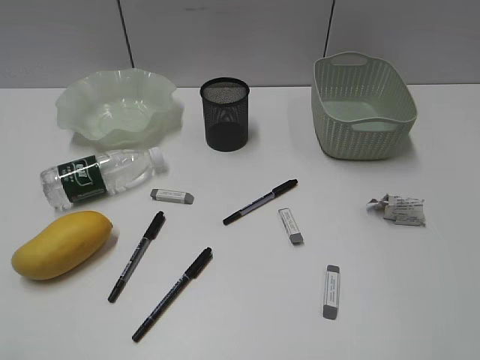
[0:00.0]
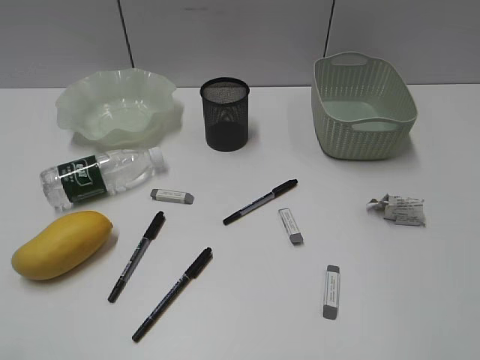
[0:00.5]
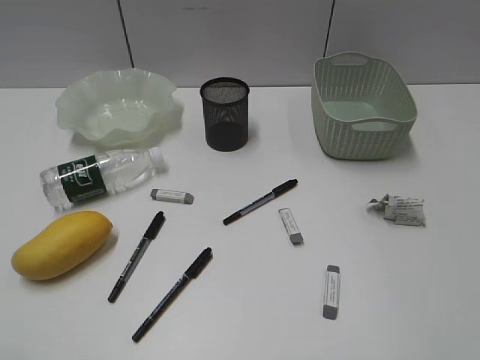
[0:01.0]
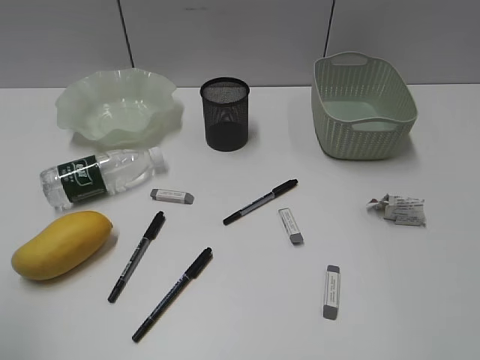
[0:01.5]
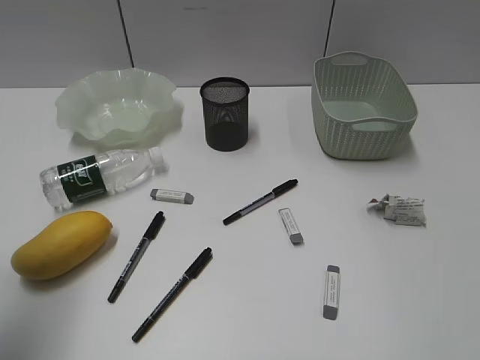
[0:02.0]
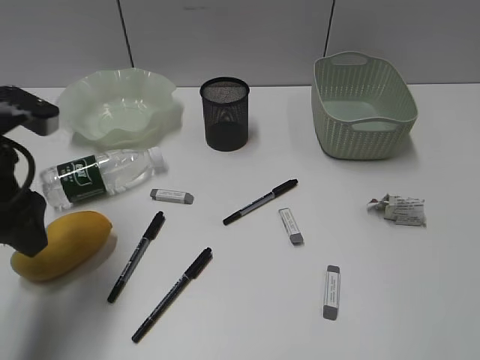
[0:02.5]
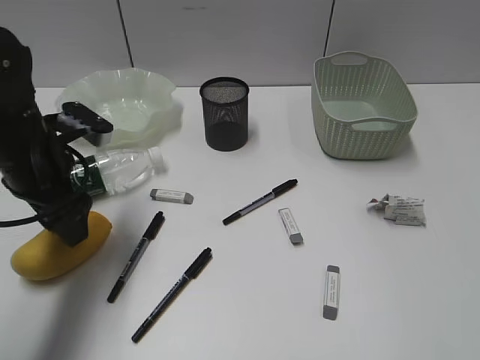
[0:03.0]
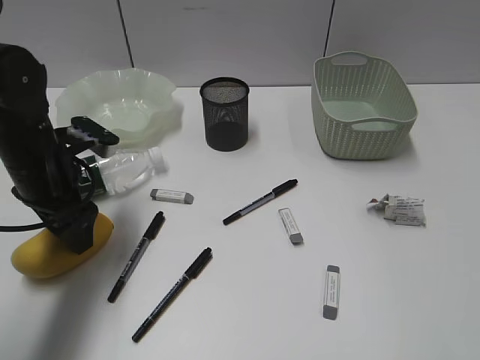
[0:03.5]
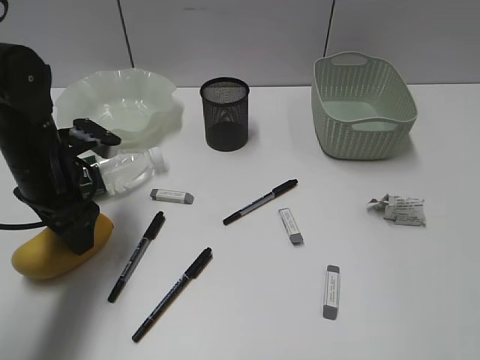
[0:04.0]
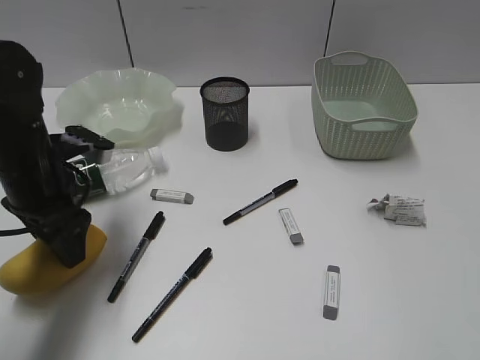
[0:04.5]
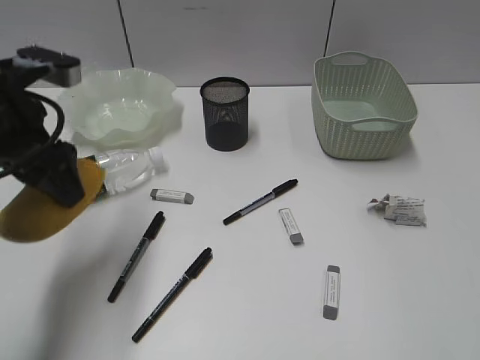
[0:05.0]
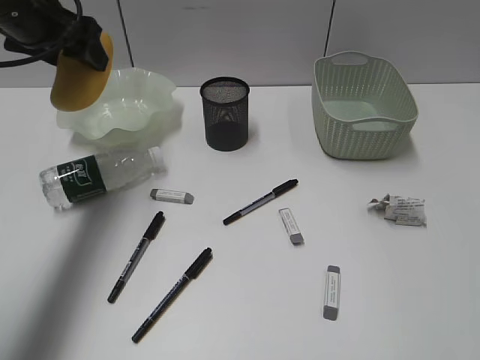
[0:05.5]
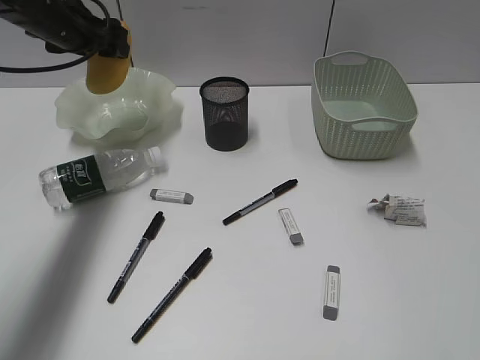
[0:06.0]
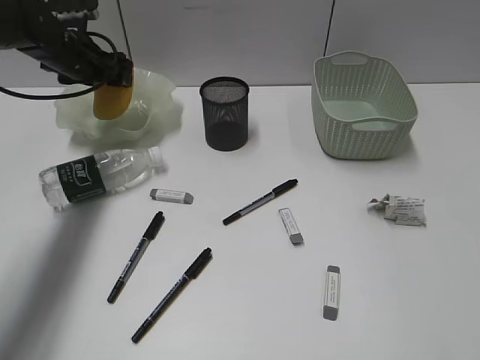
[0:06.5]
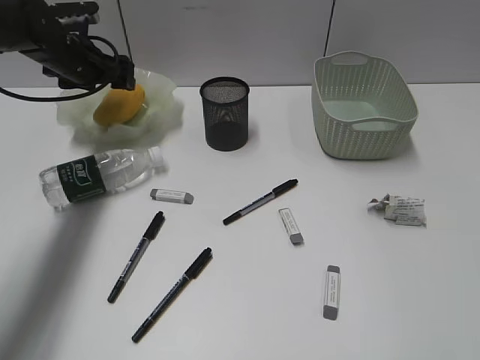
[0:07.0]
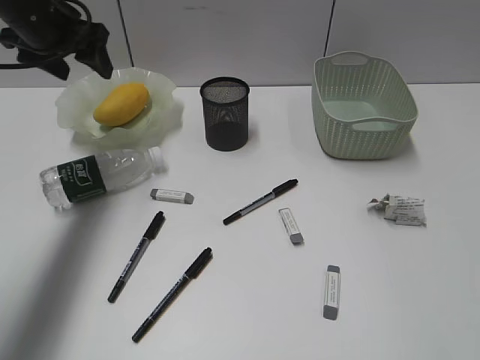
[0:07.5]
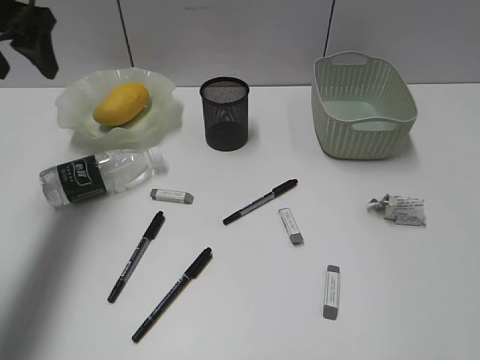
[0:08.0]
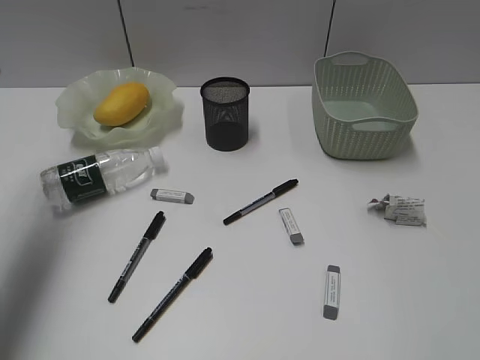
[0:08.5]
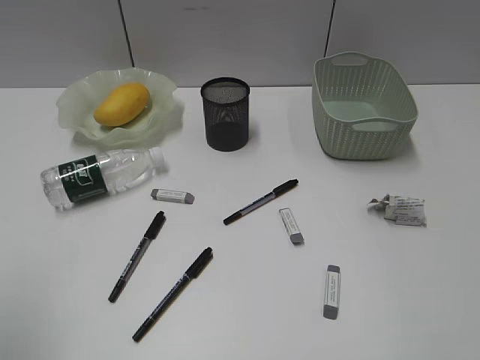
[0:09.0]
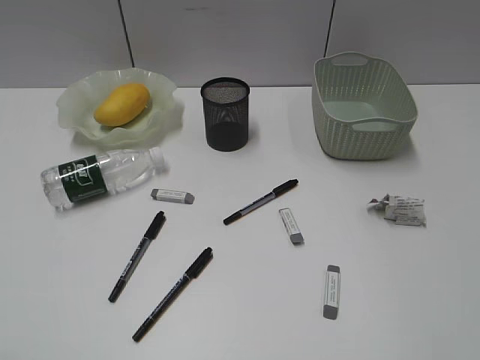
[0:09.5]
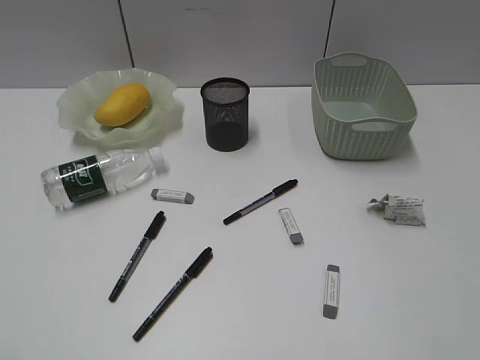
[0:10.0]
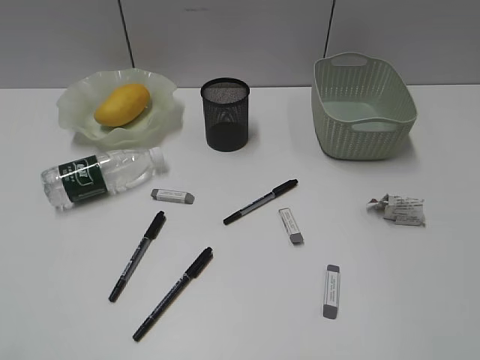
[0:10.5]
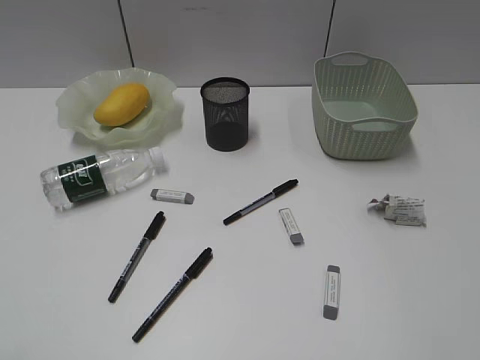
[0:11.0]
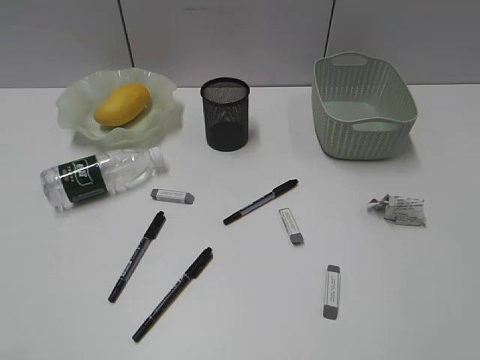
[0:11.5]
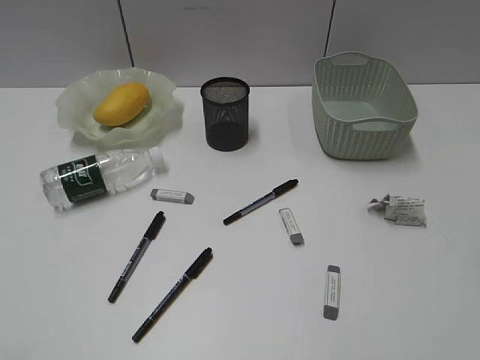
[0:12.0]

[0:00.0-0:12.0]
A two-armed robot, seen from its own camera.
Step, 0:02.5 to 0:04.0: Grasp the mango with left gripper.
Step, 0:04.5 to 0:07.0: Place the mango in the plate with left gripper.
0:02.0 to 0:04.0: The left gripper travels downward, forward and to the right by approximately 25 cm.
0:04.0 to 0:06.0: The left gripper goes roughly 20 cm forward and upward.
0:06.0 to 0:08.0: The left gripper is displaced backward and upward by approximately 10 cm.
0:08.0 to 0:10.0: The left gripper travels backward by roughly 40 cm.

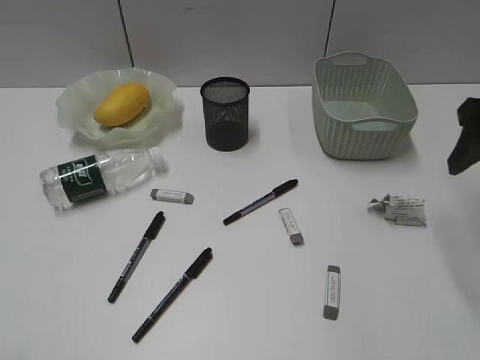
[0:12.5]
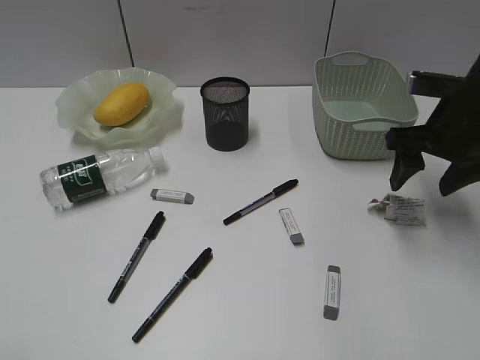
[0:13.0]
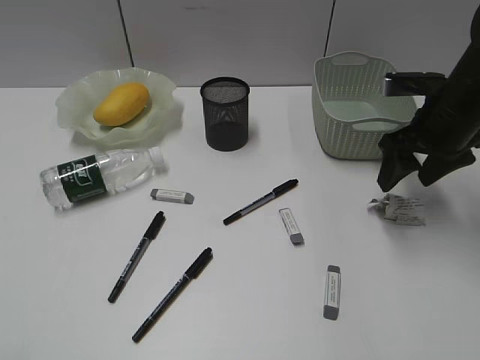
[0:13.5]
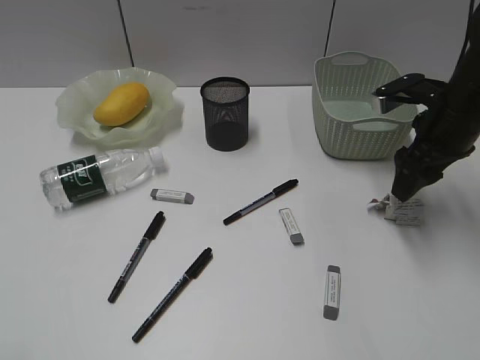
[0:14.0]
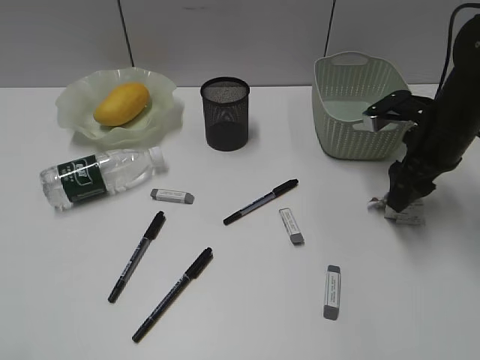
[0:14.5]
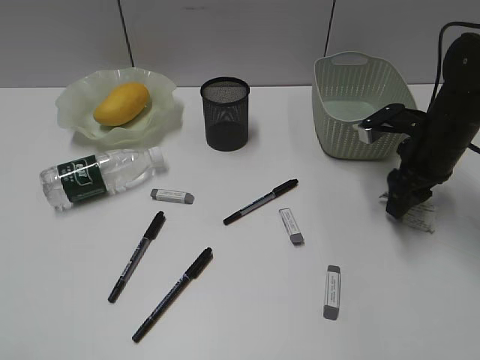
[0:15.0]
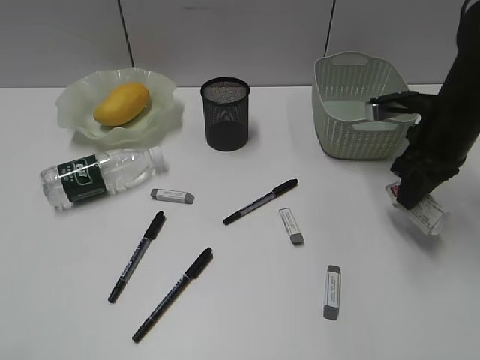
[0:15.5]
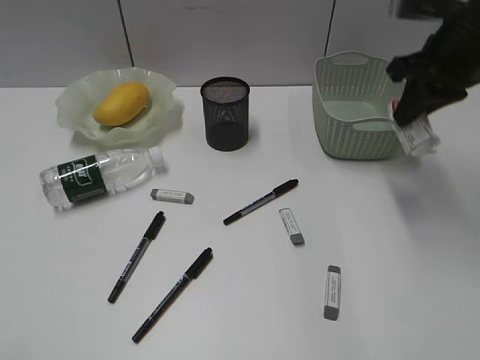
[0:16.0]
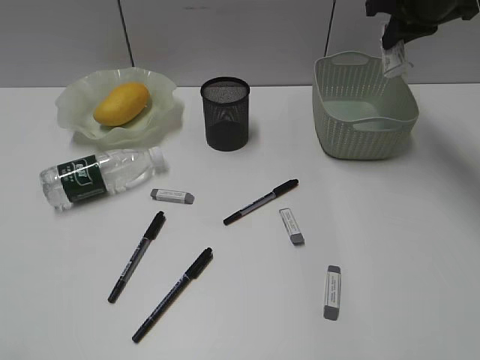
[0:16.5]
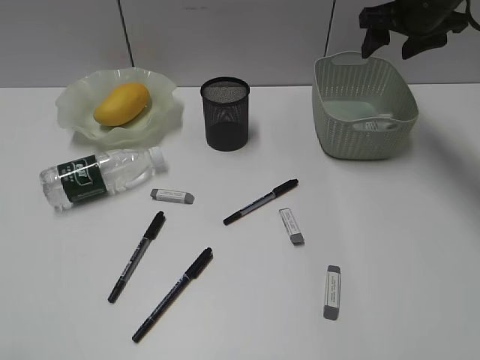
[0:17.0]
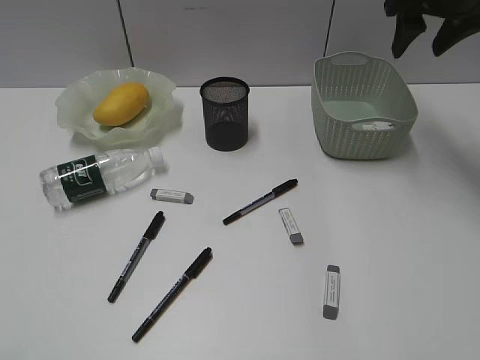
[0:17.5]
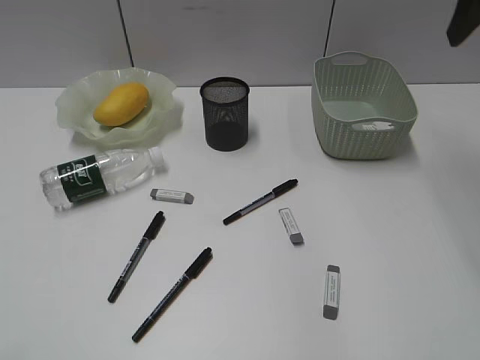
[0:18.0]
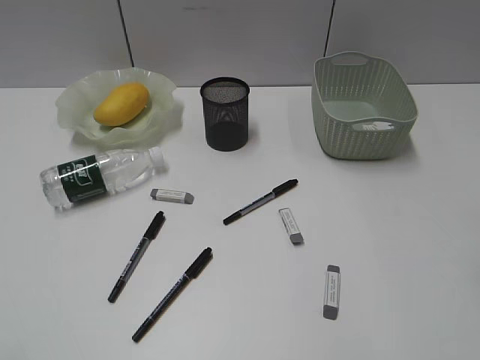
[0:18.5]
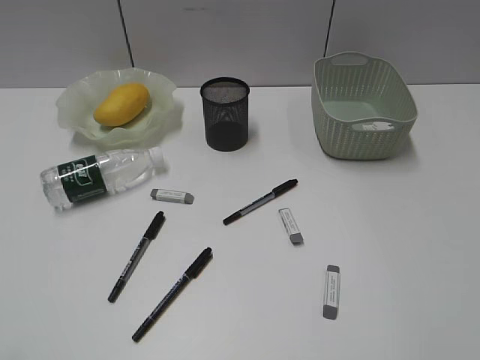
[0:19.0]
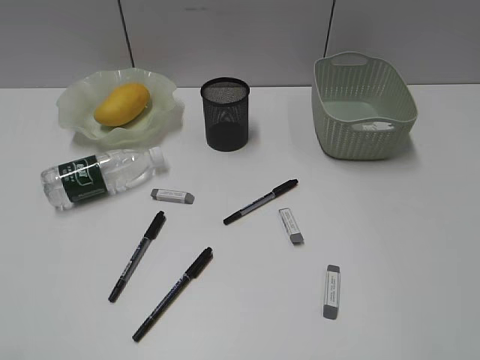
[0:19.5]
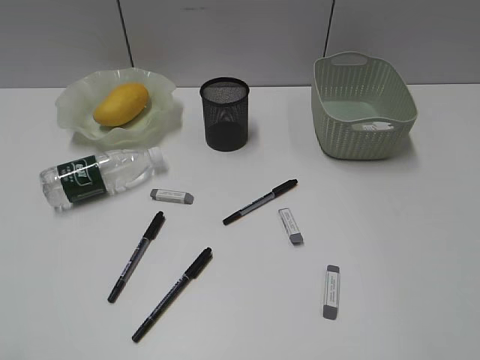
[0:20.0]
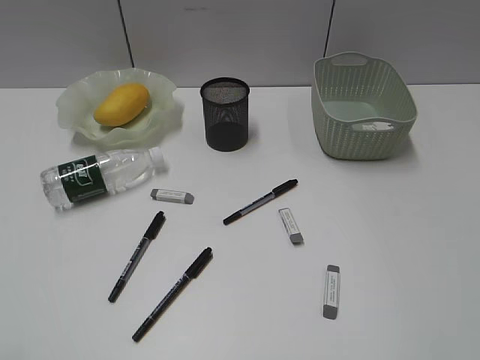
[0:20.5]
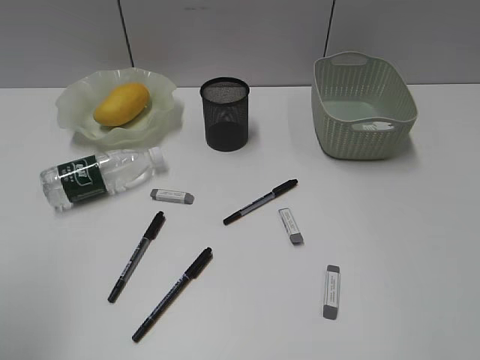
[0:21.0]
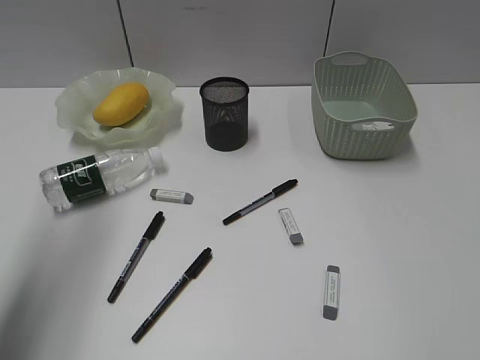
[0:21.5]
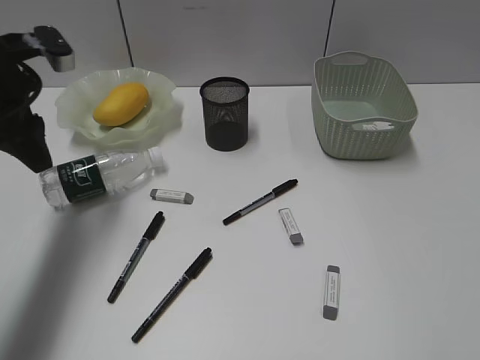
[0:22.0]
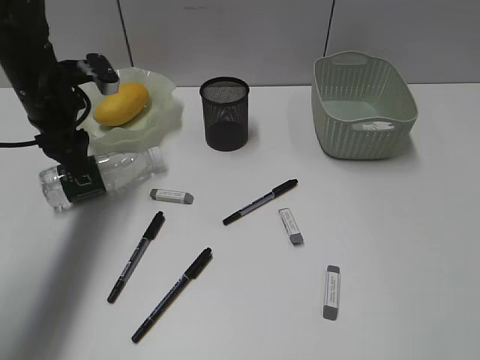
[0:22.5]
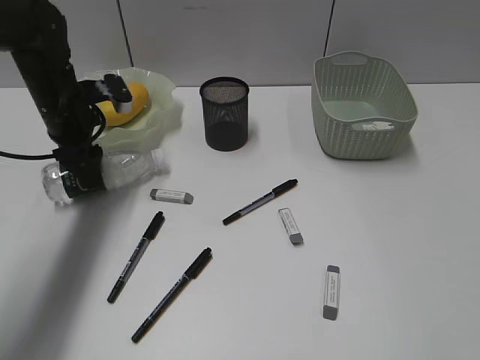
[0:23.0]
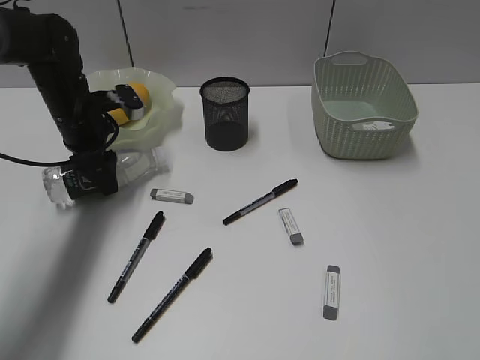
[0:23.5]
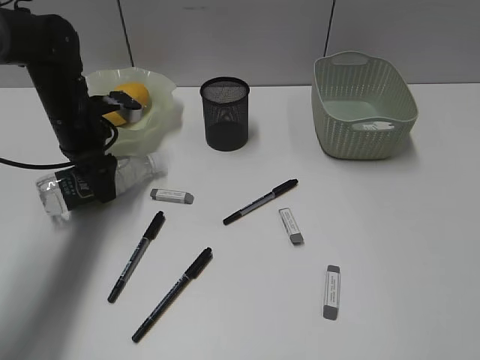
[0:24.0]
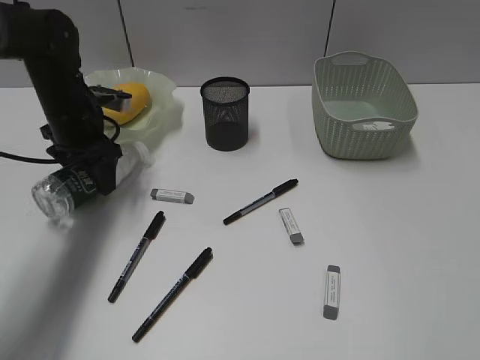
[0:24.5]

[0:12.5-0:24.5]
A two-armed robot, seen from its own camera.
Step, 0:12.5 to 0:15.0: Grasp the waste paper with right gripper.
Step, 0:15.5 to 0:17.0: Place the waste paper in the basket with right gripper.
Step, 0:17.5 to 0:23.5: Grasp the bottle with left gripper.
0:12.5 to 0:14.5: The right gripper goes roughly 15 cm downward and forward.
0:14.5 to 0:16.5: The right gripper heads upward and forward, covering approximately 15 cm, and closes up.
0:16.5 to 0:18.5: The right gripper travels backward by some 25 cm, and opens its fingers.
0:20.5 to 0:22.5: The left gripper travels forward by roughly 40 cm.
0:22.5 to 0:24.5: The left gripper shifts roughly 5 cm downward.

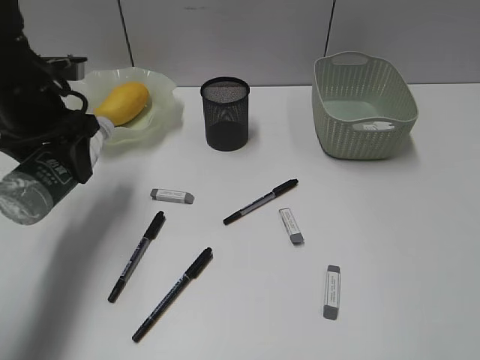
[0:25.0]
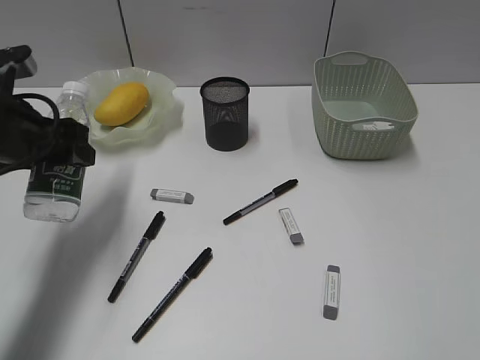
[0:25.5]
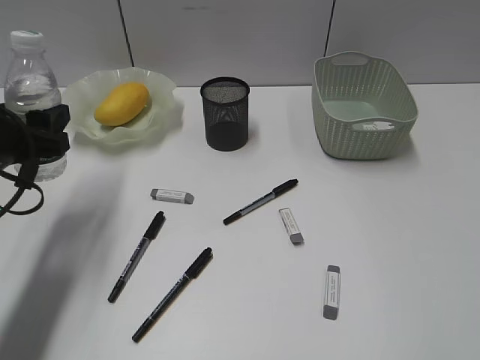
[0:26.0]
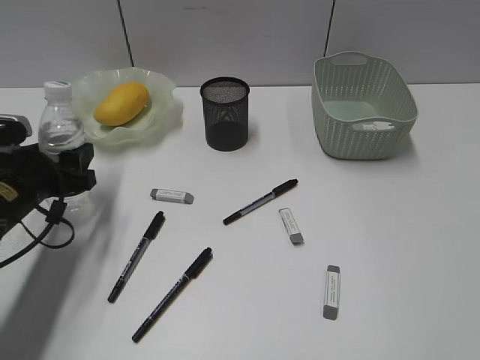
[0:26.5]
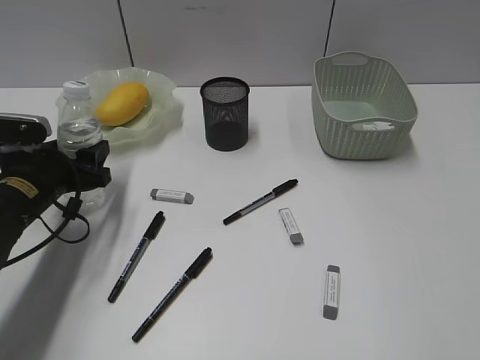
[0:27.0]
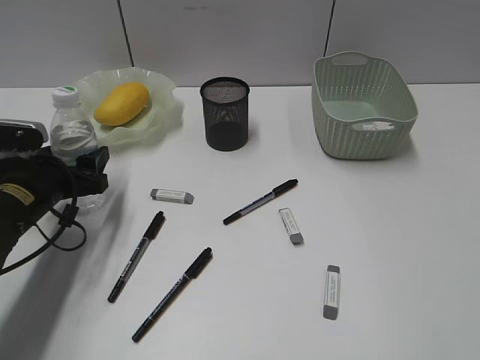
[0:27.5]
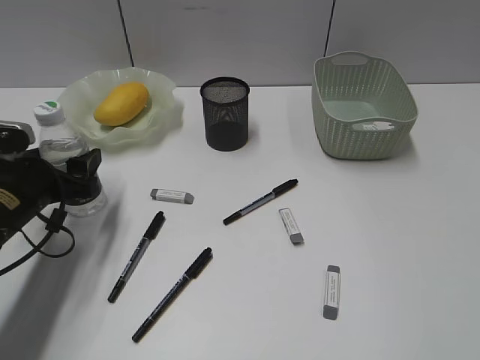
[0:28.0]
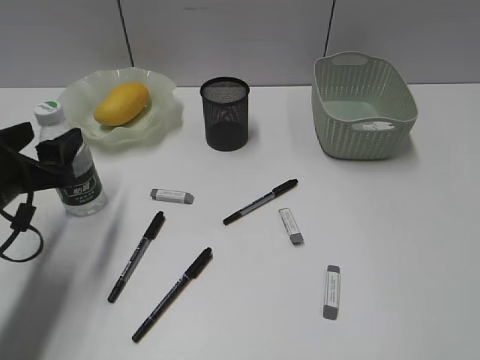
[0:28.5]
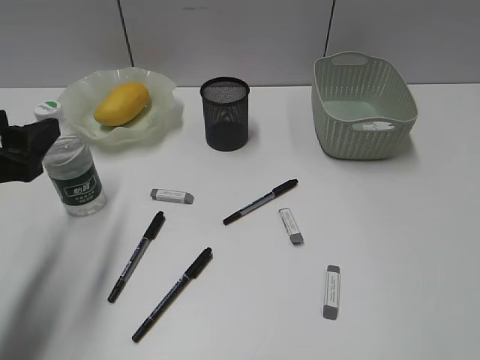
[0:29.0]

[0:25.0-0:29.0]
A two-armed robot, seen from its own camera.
0:25.0 to 0:27.0: The left gripper heads downward and backward, covering roughly 15 cm.
0:27.0 to 0:29.0: The left gripper goes some 15 cm upward and backward.
